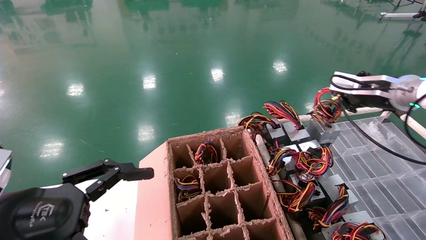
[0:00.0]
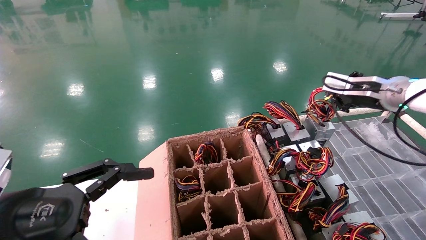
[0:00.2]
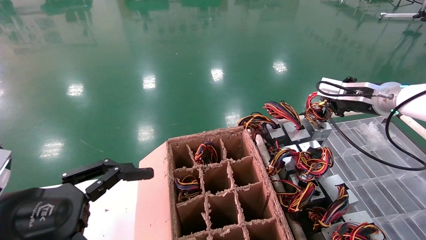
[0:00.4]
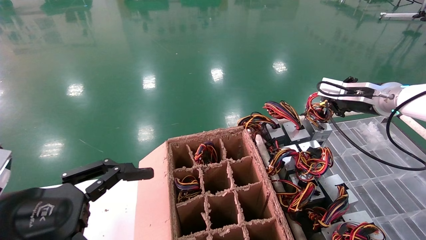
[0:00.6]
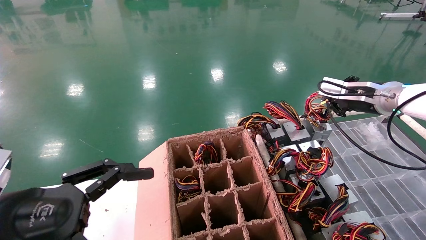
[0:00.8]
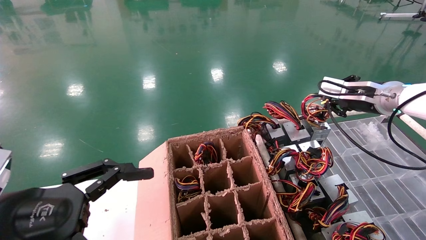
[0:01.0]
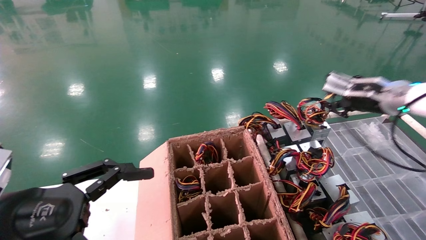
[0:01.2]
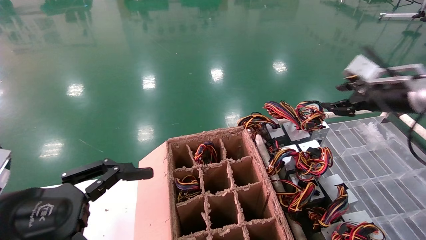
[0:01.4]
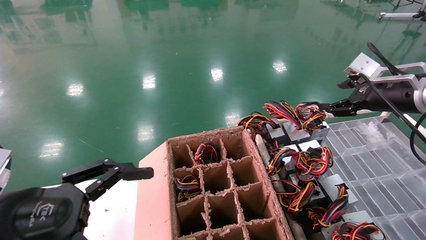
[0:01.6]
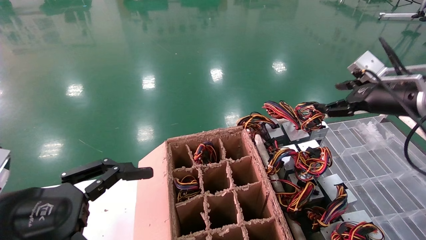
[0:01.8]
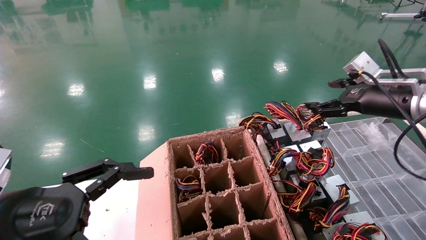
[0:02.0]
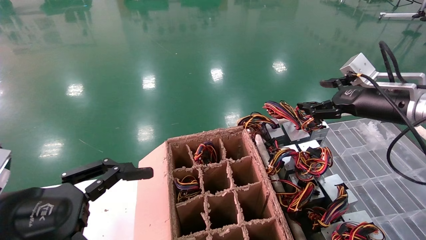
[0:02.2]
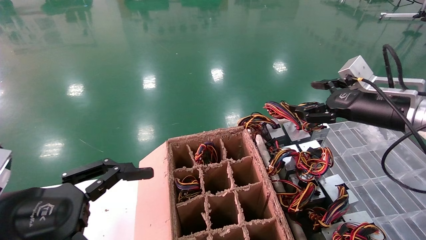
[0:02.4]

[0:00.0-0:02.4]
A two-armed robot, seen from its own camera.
0:00.0 to 0:01.2: The grippers make only small movements.
0:01.2 to 0:02.4: The right gripper travels backward by approximately 5 cm, and opens up.
